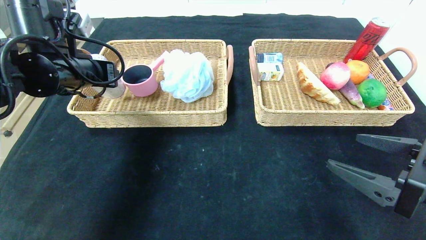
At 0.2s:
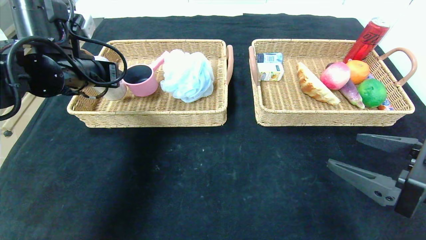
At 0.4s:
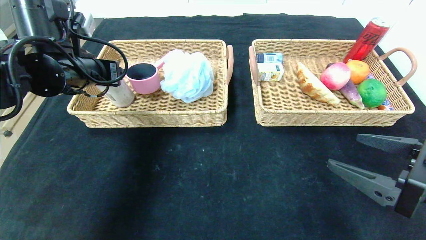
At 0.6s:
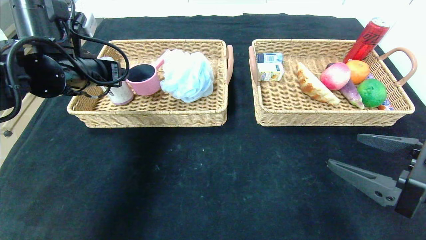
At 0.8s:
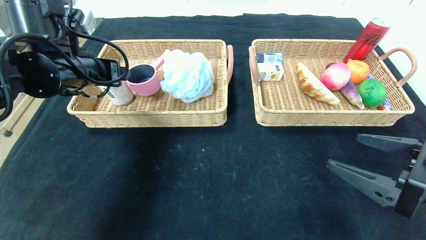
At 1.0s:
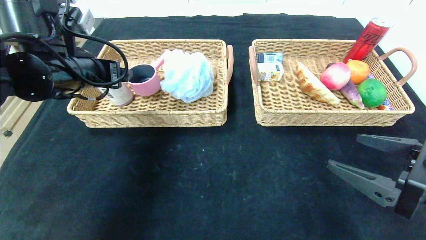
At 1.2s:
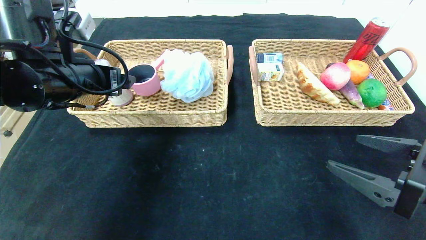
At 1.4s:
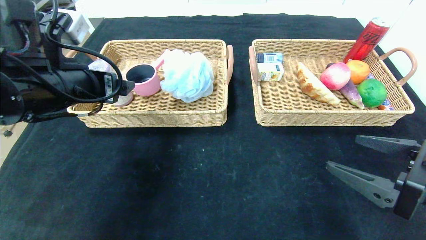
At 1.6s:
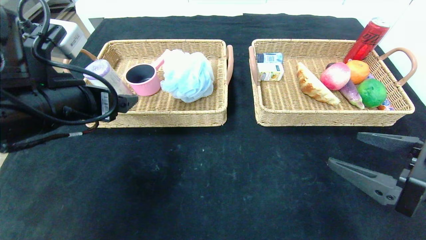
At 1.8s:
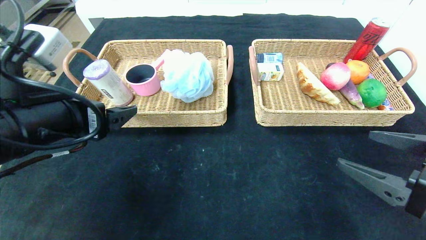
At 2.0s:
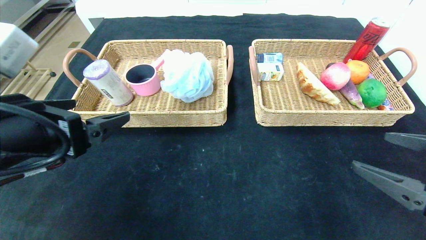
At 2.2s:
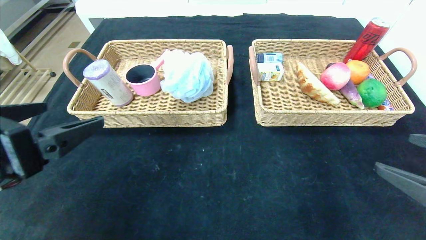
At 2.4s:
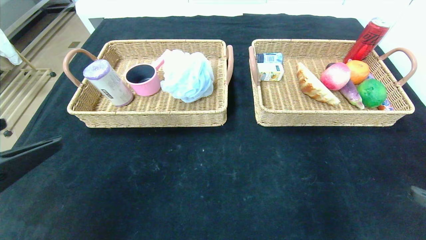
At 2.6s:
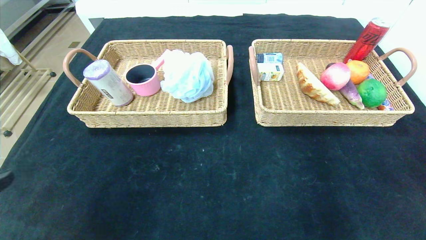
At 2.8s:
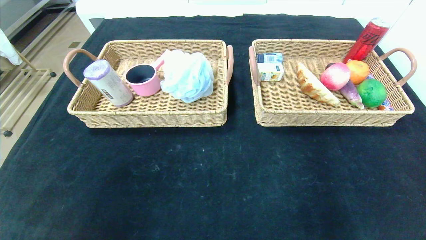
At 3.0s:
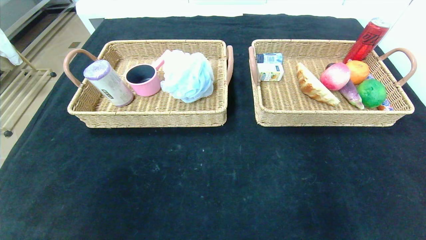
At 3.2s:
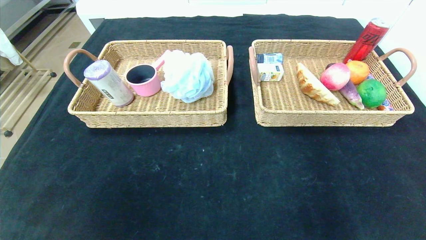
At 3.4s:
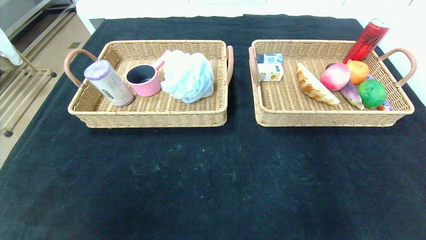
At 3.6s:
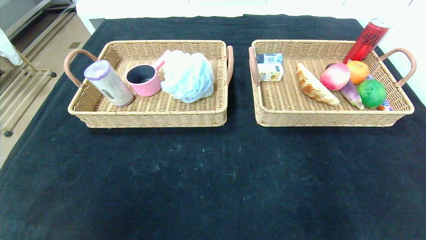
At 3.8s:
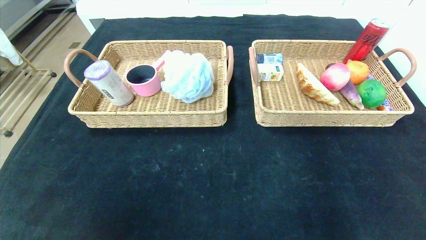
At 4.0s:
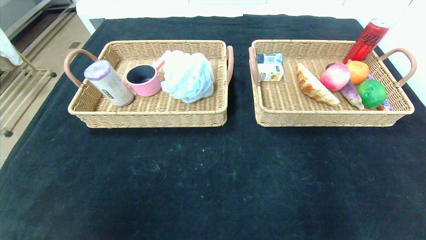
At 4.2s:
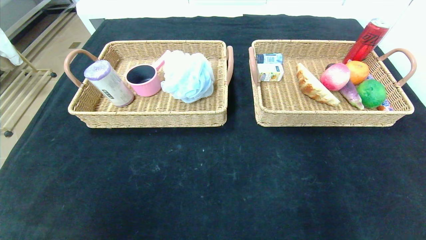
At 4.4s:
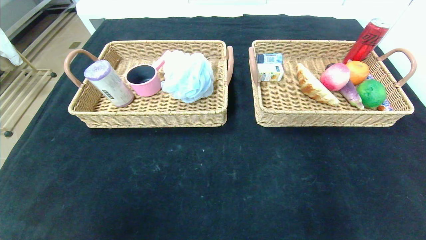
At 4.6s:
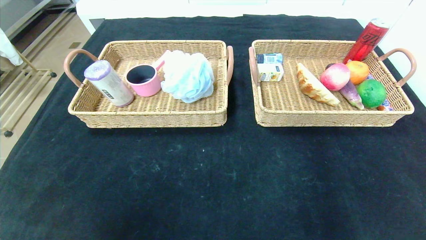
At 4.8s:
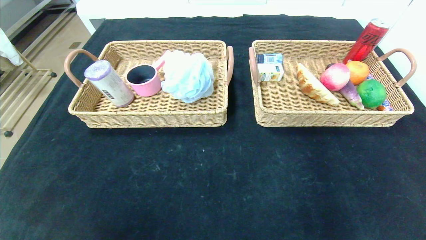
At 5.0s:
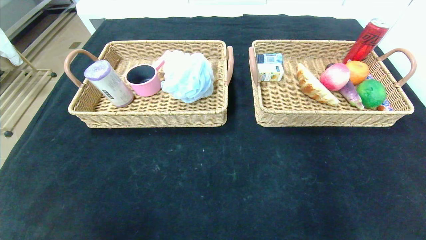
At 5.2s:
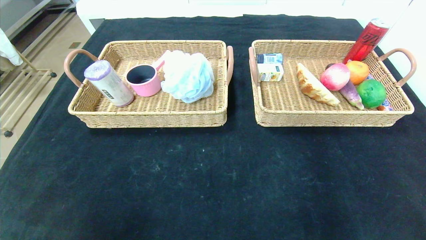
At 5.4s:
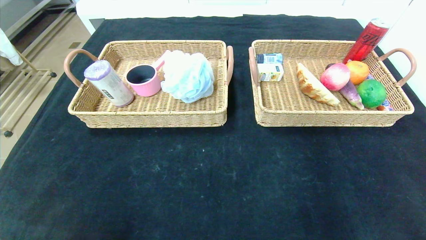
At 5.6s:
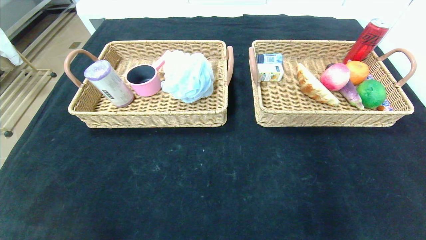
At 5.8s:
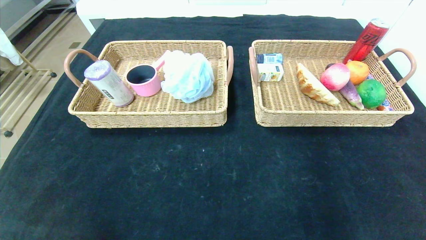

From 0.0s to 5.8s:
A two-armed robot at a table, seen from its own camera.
Step, from 0.0s to 2.6s: Pick up the purple garbage bag and put it in the left basket.
From 0.0s to 1.4s: The left gripper shifts some 5 cm backward, and opens.
From 1.4s to 2.8s: The right gripper goes some 20 cm backward and to the right. The left gripper heads backward, covering about 25 cm.
From 2.8s to 4.4s: The left gripper travels backward by some 10 cm; the right gripper moves backward and downward, some 15 cm.

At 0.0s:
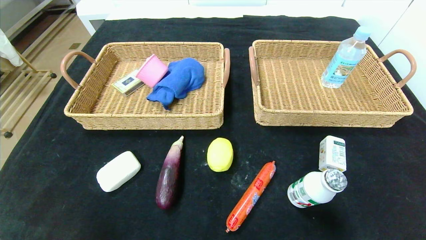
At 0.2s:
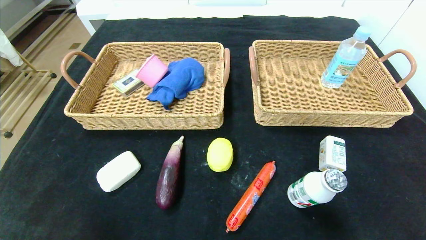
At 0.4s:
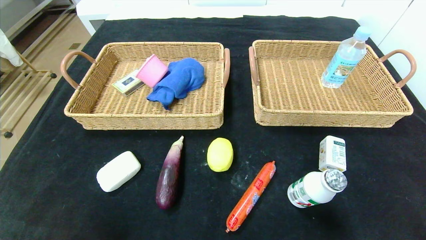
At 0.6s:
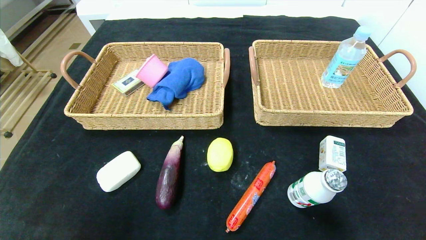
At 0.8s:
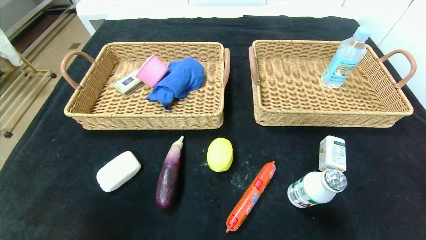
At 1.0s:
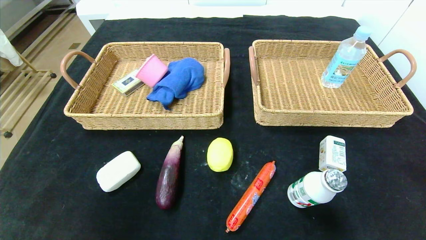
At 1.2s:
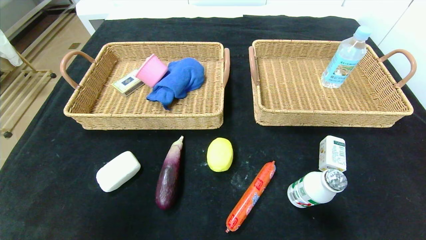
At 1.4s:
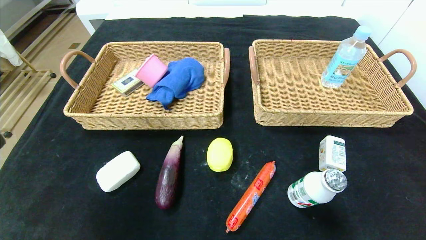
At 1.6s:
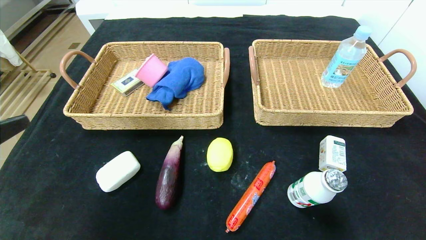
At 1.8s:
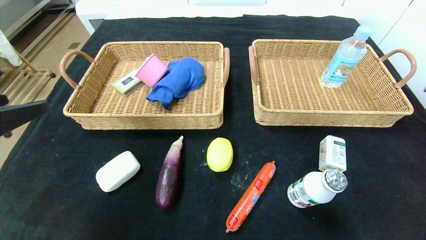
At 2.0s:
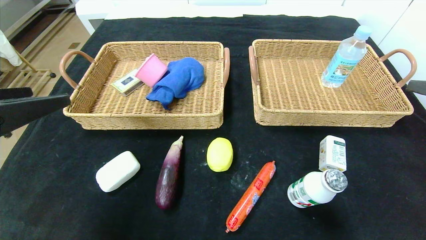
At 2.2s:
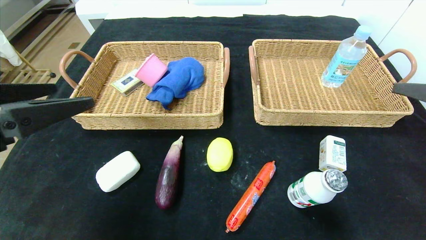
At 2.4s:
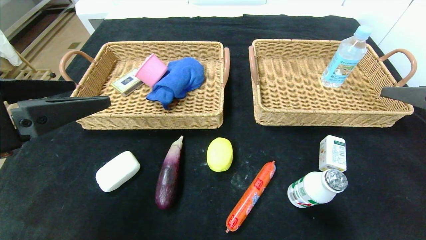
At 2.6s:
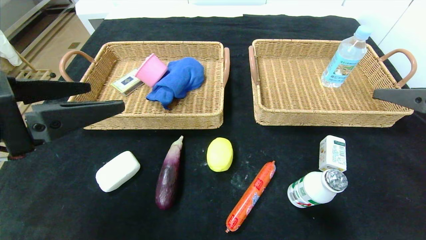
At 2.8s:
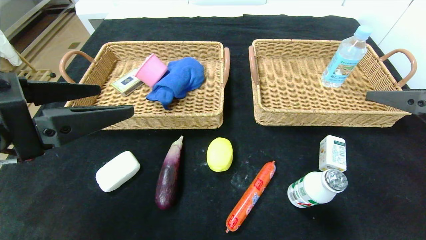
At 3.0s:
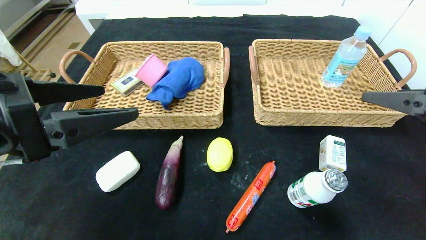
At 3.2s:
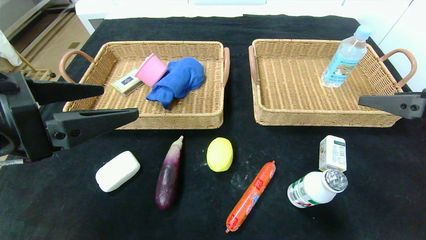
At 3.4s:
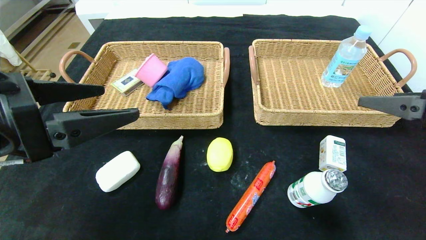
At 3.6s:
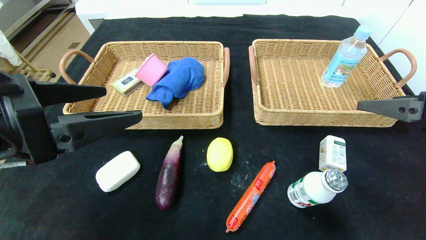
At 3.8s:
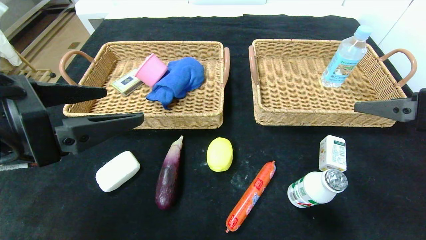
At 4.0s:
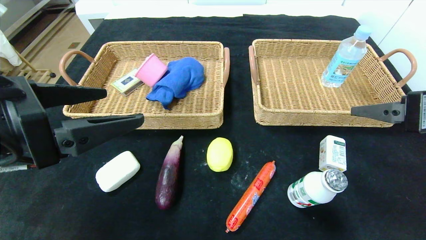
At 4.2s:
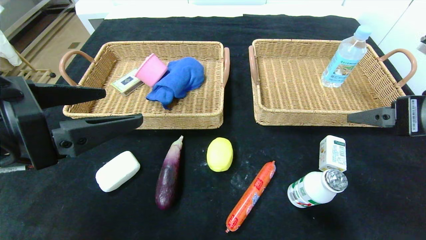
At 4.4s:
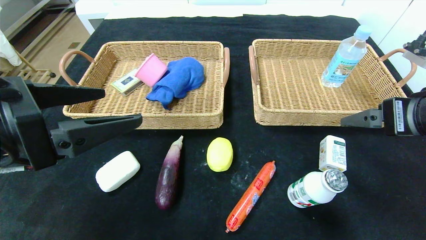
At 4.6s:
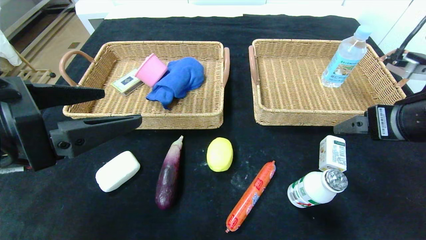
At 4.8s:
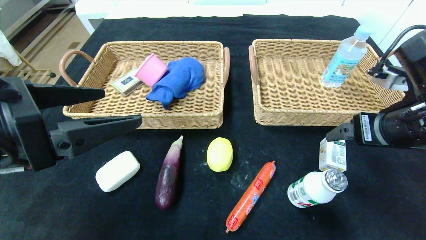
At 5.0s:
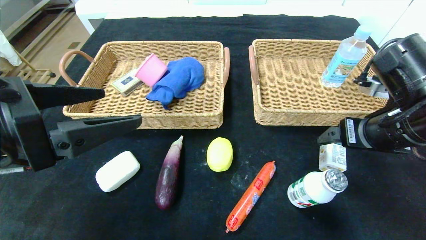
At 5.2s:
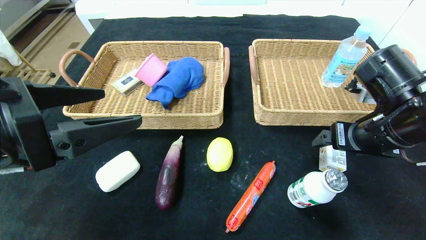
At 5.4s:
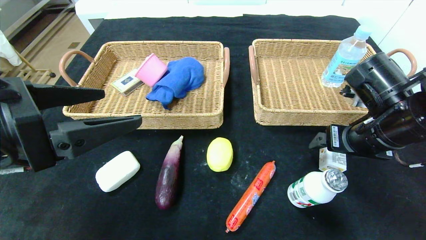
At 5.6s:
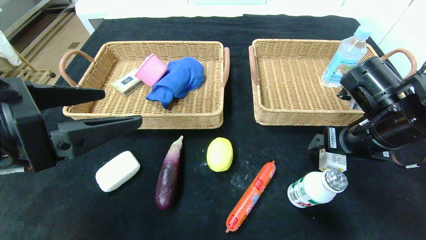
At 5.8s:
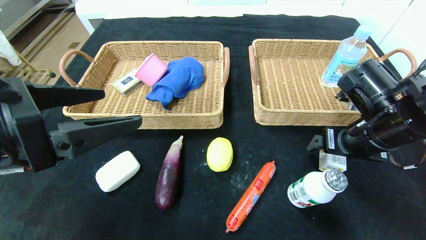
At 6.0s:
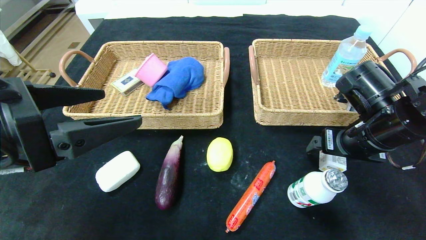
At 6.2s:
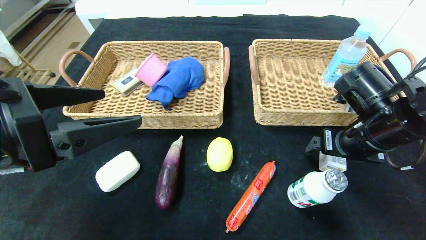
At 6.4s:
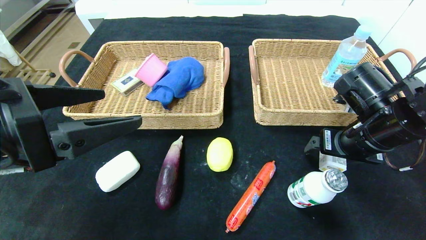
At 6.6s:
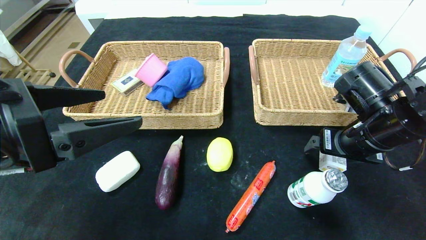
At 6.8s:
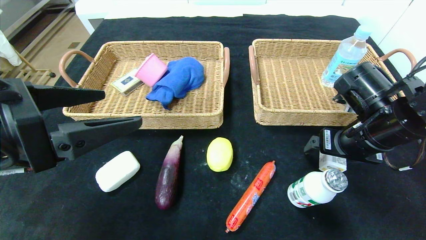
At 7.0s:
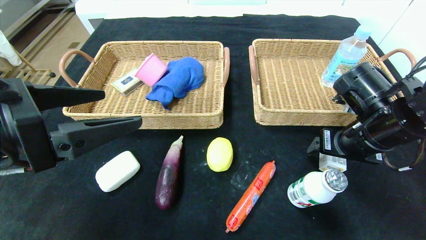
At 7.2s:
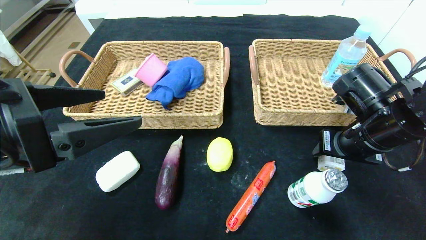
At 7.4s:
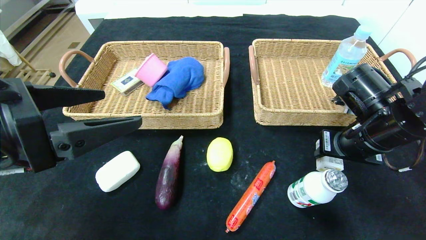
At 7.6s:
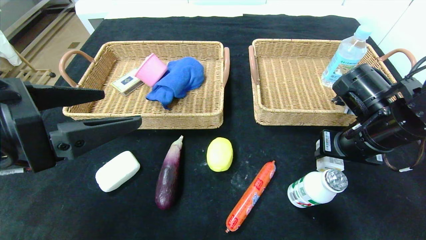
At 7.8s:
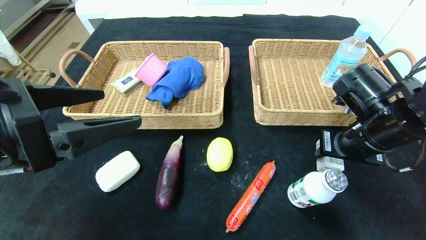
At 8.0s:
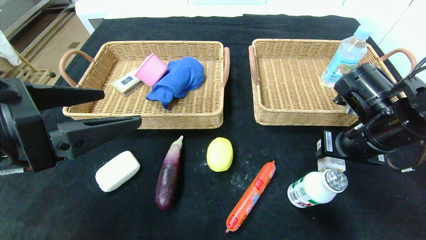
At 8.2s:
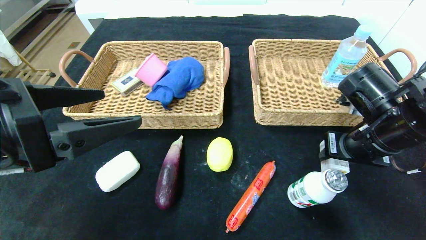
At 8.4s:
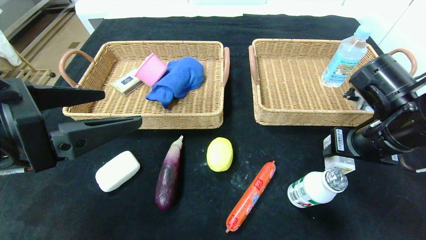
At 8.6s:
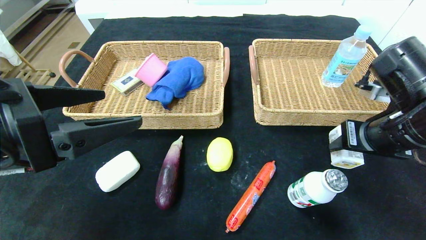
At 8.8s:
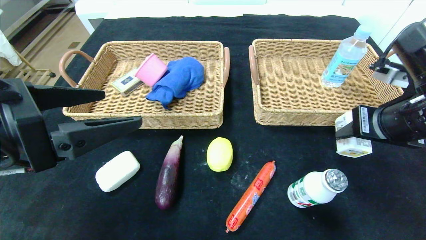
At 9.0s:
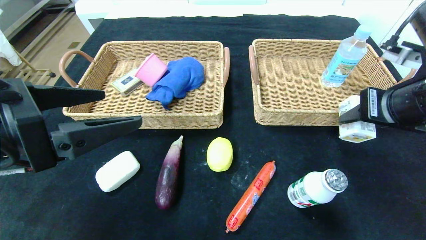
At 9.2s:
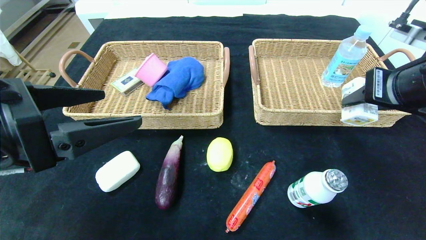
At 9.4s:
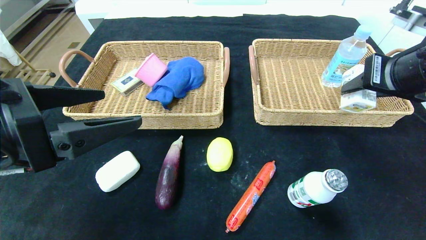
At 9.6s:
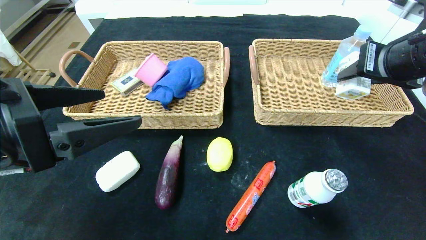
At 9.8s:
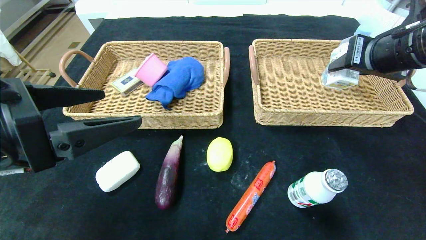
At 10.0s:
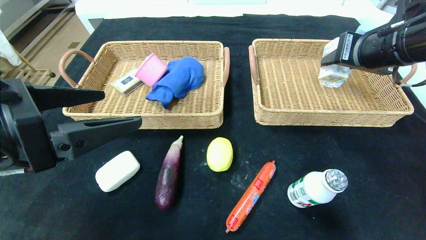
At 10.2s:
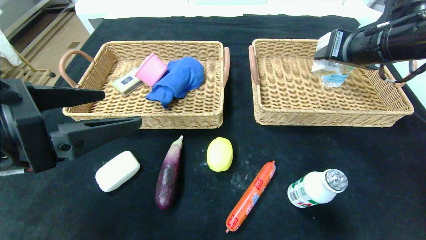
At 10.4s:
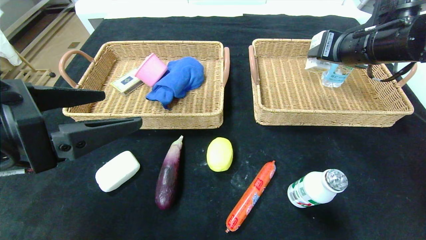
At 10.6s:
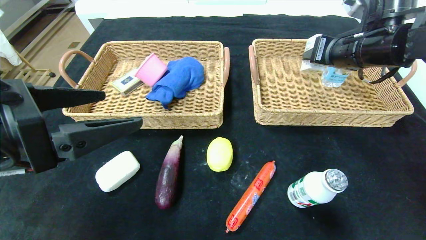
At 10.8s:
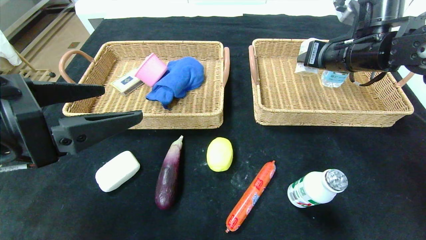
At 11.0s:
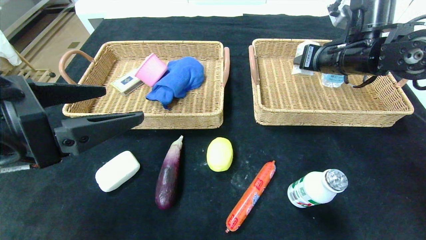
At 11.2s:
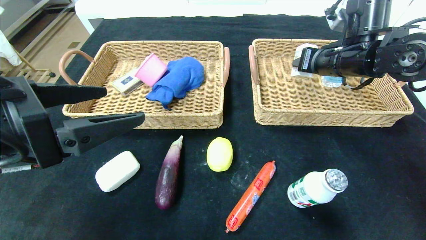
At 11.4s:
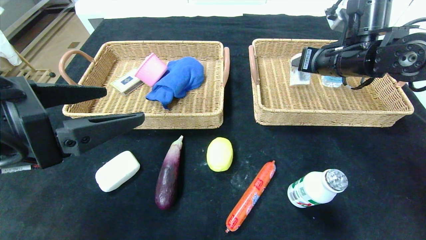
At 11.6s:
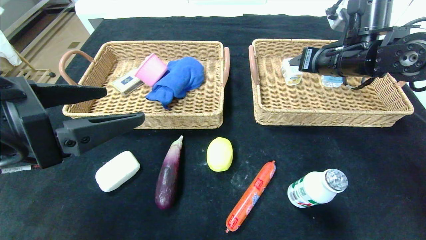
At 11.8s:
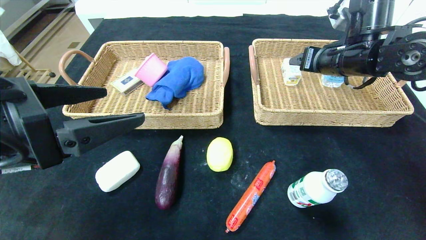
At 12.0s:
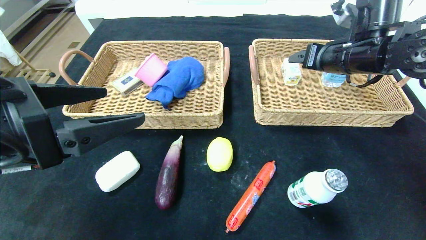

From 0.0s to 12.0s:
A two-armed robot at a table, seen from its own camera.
Step, from 0.0s to 11.6s: Grasp the ad milk and put it in the right basket.
From 0.0s to 1.6s: Both grippers travel together forward and upward, roughly 10 cm.
From 1.6s to 3.0s: The right gripper moves forward, some 5 cm; the left gripper moves forward and to the right, some 10 cm.
From 4.4s to 6.0s: The right gripper moves forward and downward, roughly 10 cm.
From 6.0s to 7.6s: The right gripper closes its fingers.
From 7.6s to 9.0s: The right gripper is displaced upward by approximately 10 cm.
From 9.0s to 10.4s: The right gripper goes approximately 10 cm forward.
From 10.4s to 12.0s: The right gripper opens its fingers.
